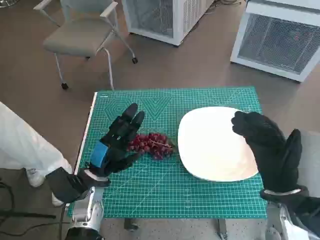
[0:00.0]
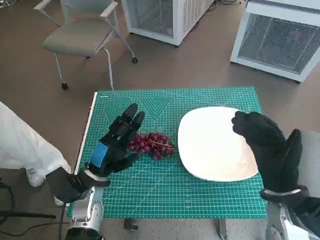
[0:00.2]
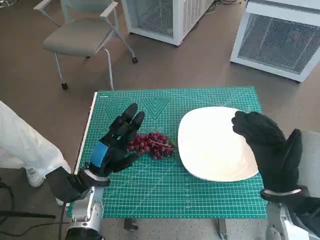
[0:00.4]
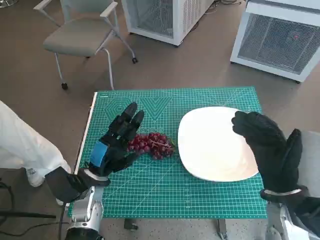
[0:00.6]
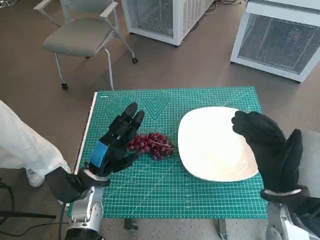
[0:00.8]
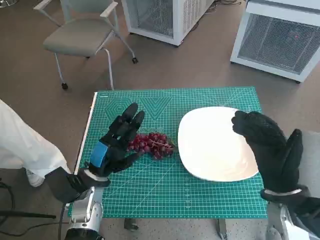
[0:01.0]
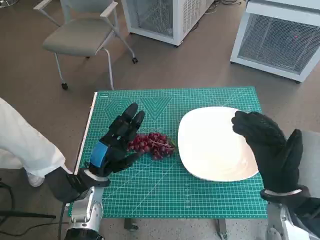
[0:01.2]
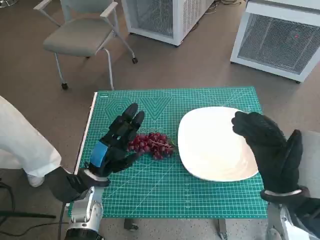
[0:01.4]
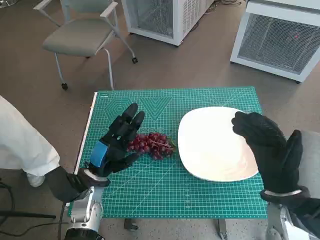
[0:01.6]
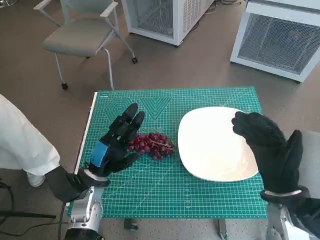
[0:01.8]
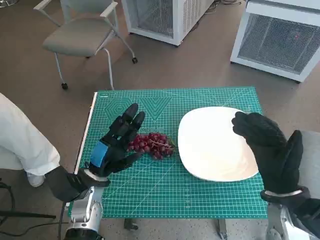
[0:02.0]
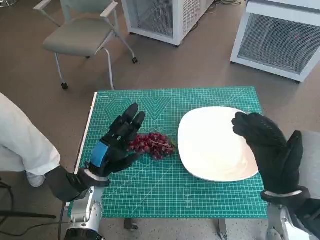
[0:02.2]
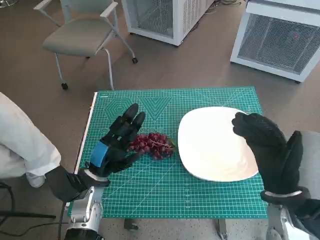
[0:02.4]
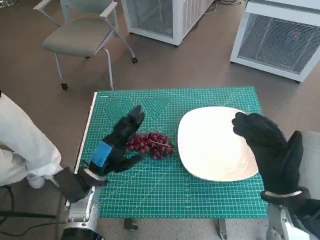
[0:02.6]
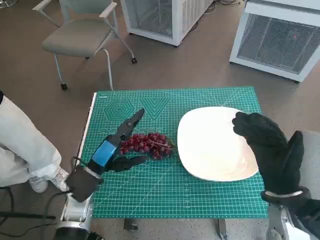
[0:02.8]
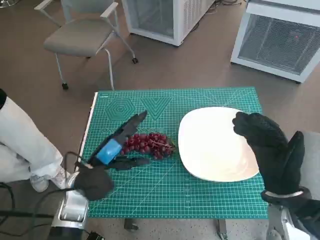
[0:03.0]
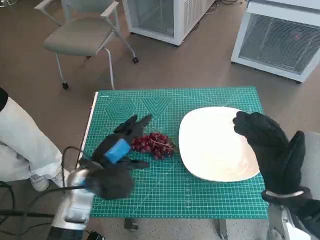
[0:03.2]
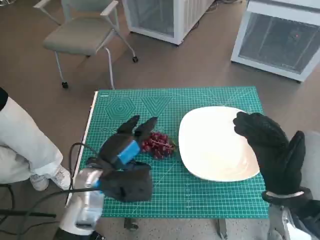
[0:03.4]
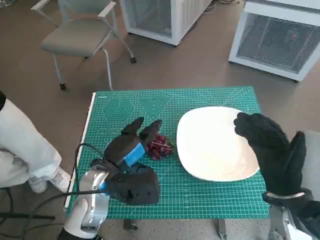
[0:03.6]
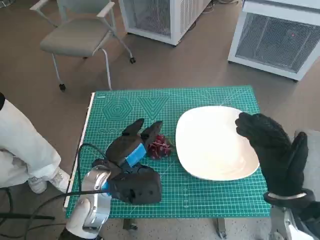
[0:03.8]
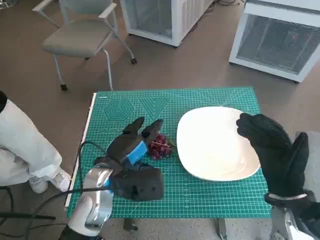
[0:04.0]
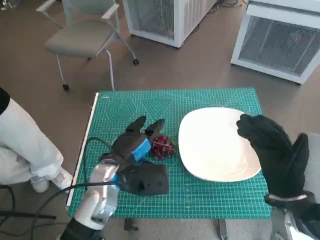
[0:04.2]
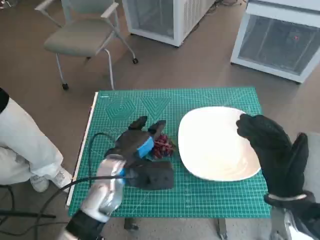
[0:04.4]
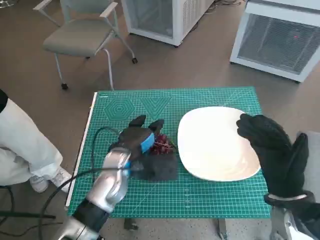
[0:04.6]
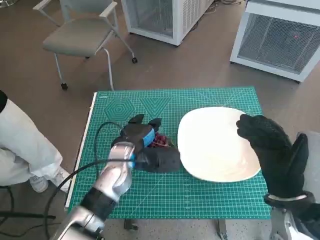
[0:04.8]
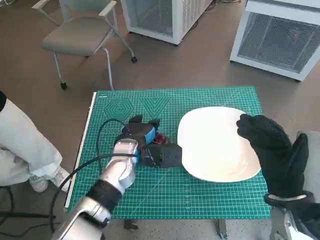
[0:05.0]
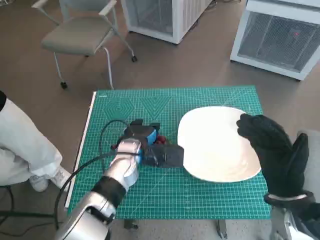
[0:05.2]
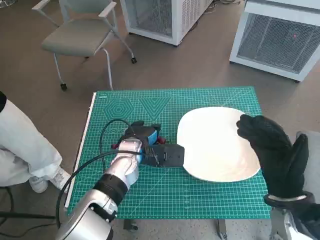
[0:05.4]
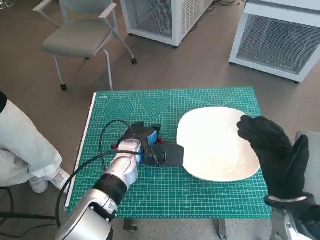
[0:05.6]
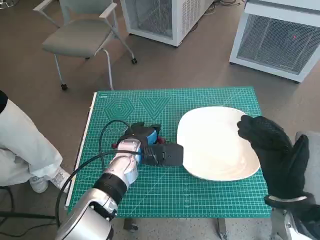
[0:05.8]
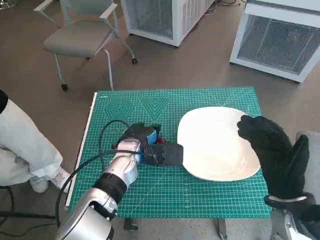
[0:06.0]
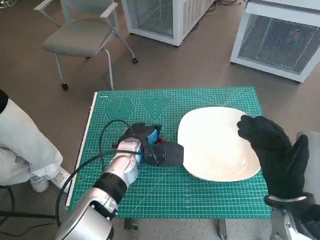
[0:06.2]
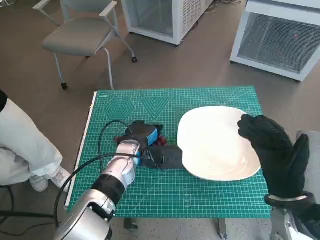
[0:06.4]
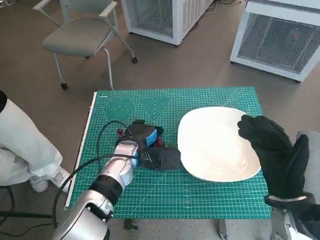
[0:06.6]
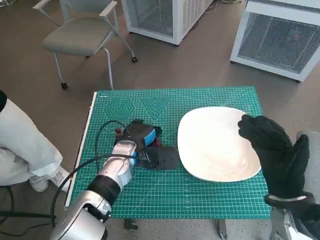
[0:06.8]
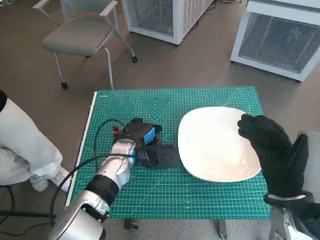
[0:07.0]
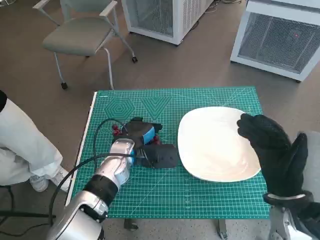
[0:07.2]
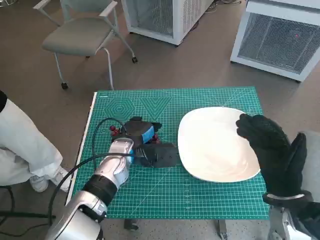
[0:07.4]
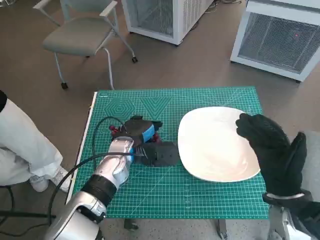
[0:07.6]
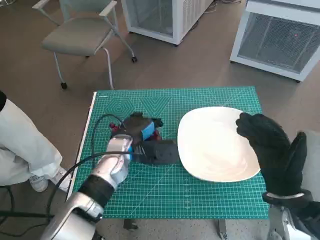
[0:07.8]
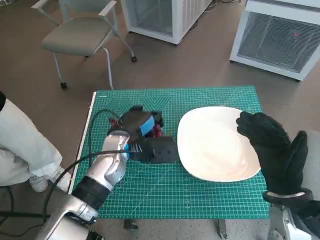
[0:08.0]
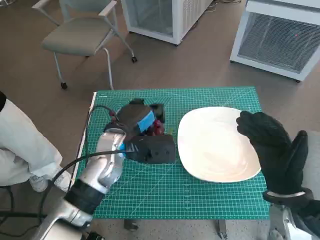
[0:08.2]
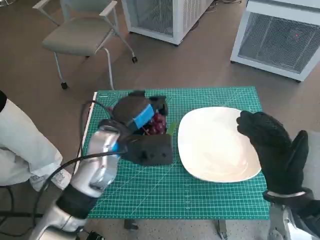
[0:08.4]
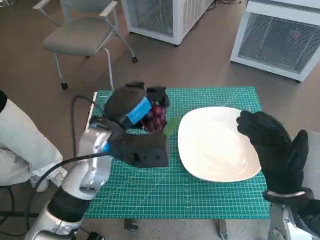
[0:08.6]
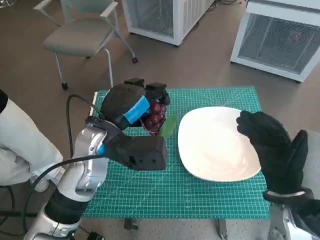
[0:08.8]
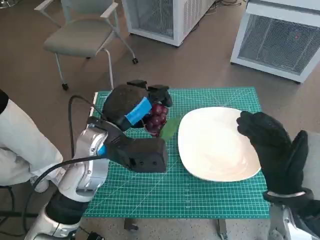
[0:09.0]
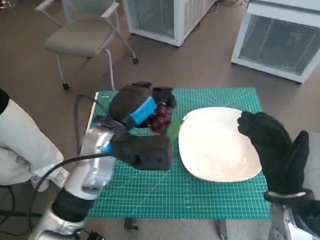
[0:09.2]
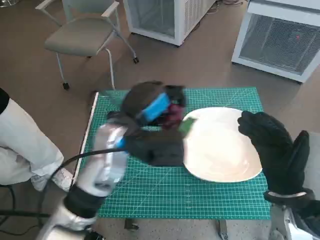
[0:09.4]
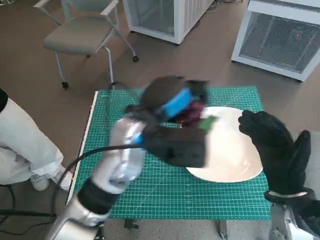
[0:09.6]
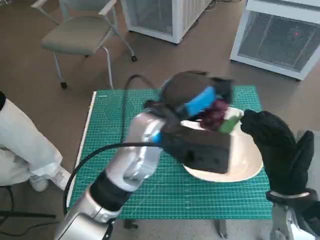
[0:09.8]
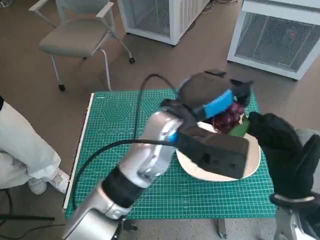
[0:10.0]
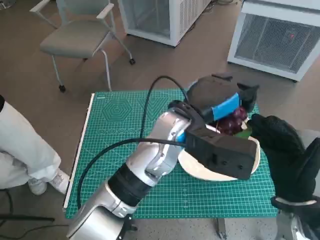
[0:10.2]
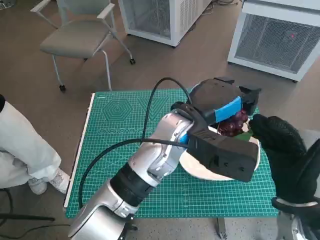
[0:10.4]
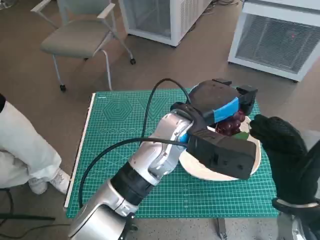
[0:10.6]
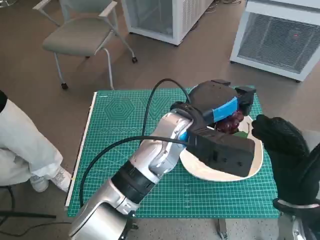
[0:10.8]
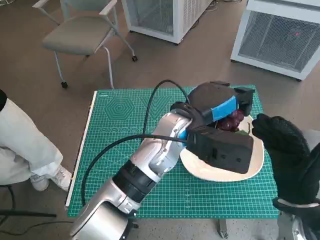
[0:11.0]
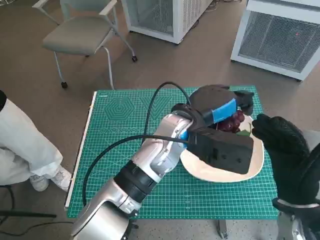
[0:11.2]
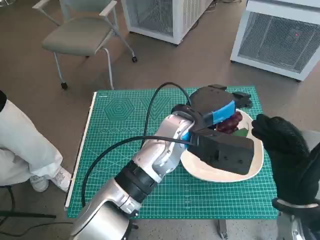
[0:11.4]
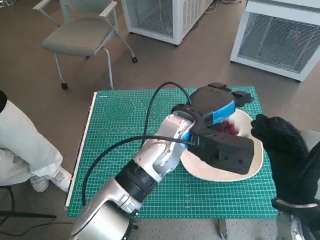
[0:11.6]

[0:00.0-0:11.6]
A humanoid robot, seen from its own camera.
Task of the whole recording: Pick up the grapes and put them on the plate.
Step, 0:00.0 to 0:06.8: Grasp the grapes with left hand.
0:02.8 to 0:04.4: The left hand moves to the right, about 5 cm.
0:04.4 to 0:05.8: The left hand heads forward, covering approximately 5 cm.
0:05.8 to 0:07.2: The hands stay close to where they were, moving slightly.
0:07.2 to 0:08.8: The left hand travels upward by about 10 cm.
0:08.8 to 0:10.2: The left hand heads to the right, covering some 10 cm.
0:10.2 to 0:11.6: The hands make only small movements.

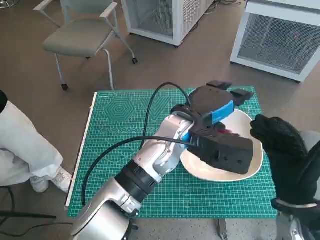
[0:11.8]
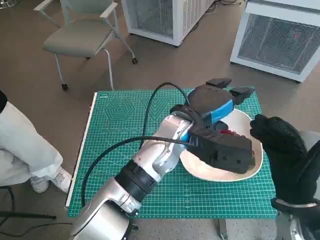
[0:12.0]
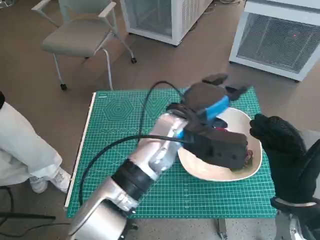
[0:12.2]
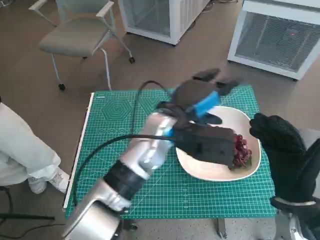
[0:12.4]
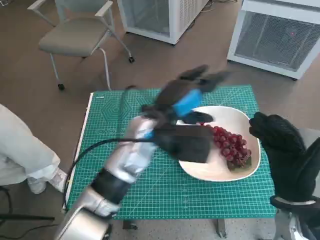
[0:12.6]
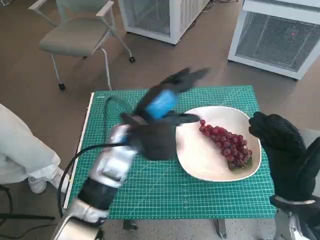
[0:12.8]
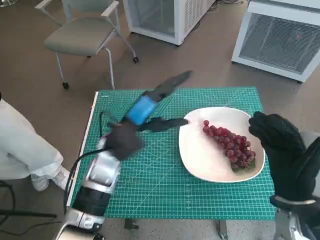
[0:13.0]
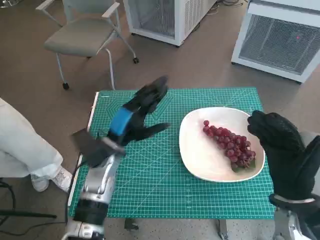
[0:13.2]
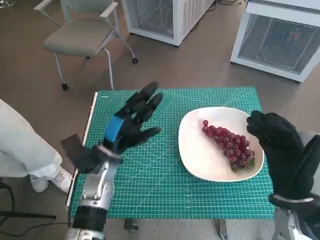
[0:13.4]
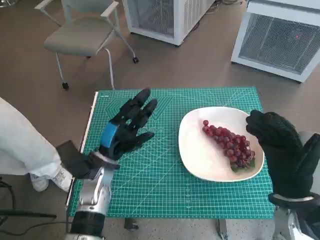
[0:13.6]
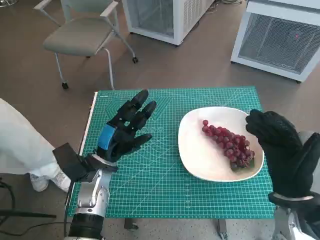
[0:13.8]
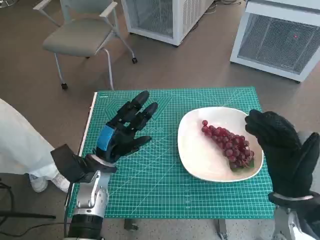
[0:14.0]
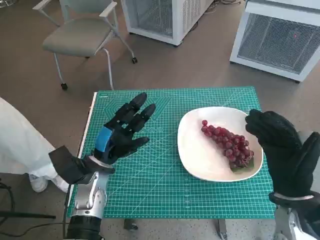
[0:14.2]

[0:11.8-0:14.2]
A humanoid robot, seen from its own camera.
Task of the whole recording: Pick up the grapes and put them on the plate.
0:11.8 to 0:13.0: The left hand shifts about 10 cm to the left.
0:13.0 to 0:14.2: The left hand goes about 10 cm downward and to the left.

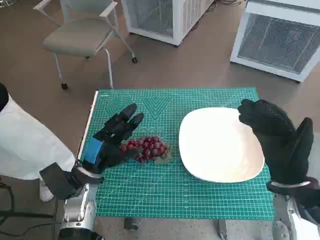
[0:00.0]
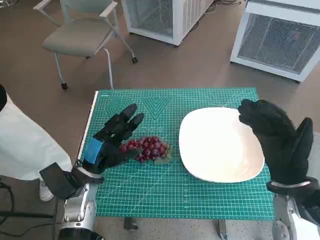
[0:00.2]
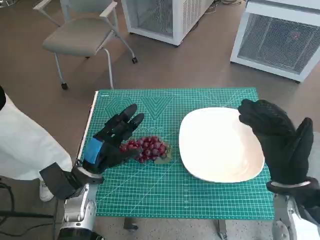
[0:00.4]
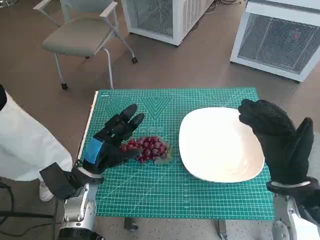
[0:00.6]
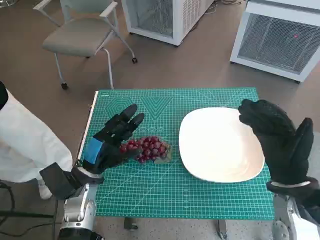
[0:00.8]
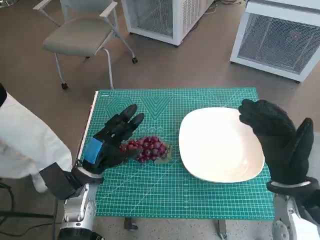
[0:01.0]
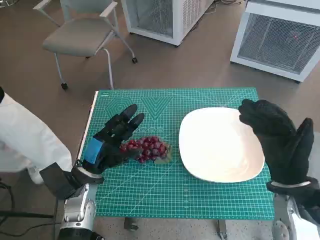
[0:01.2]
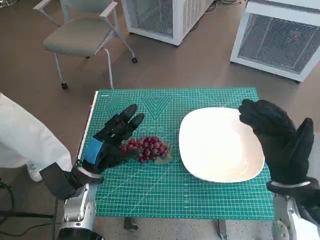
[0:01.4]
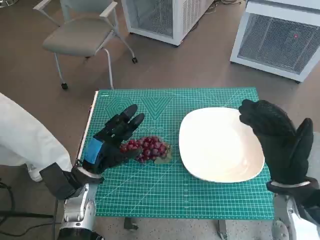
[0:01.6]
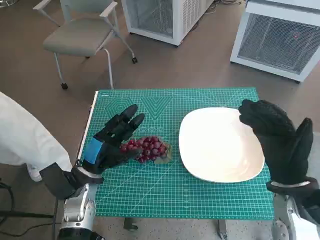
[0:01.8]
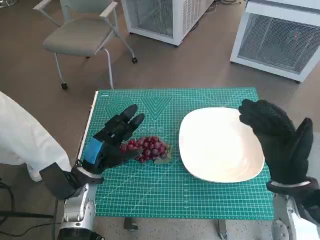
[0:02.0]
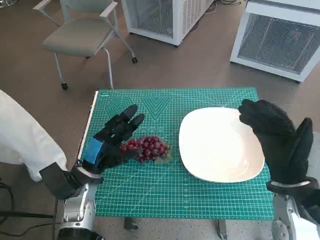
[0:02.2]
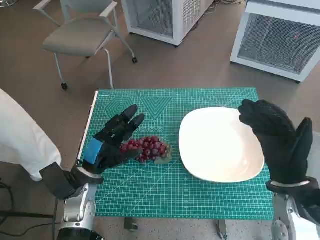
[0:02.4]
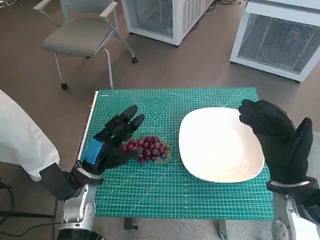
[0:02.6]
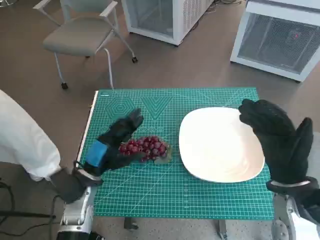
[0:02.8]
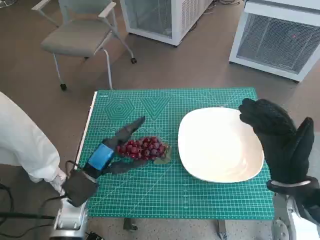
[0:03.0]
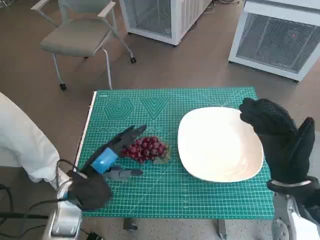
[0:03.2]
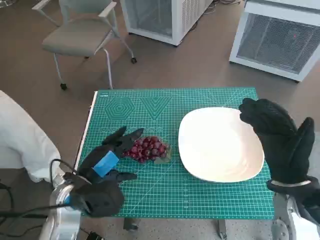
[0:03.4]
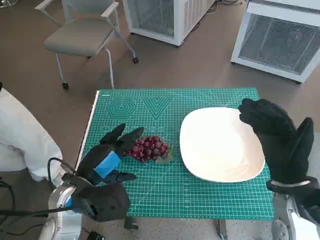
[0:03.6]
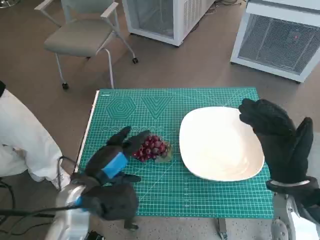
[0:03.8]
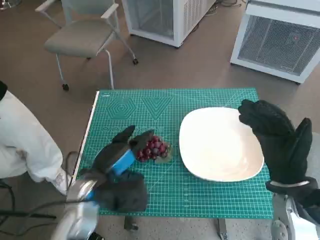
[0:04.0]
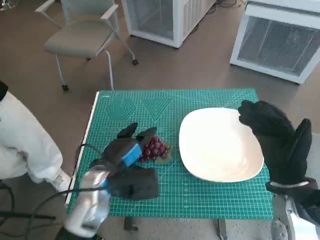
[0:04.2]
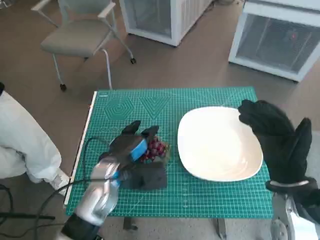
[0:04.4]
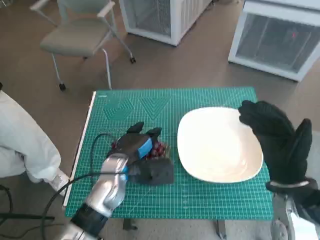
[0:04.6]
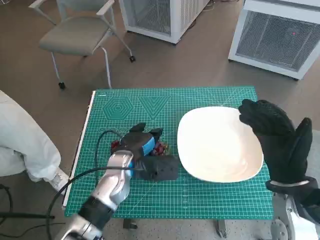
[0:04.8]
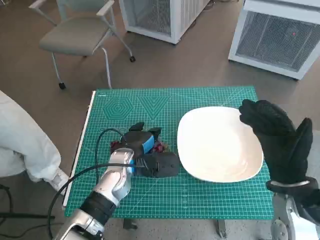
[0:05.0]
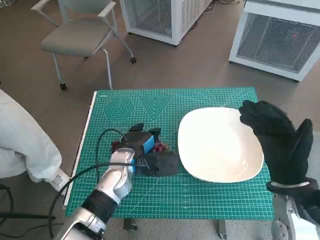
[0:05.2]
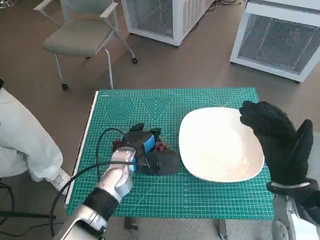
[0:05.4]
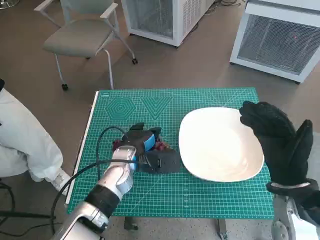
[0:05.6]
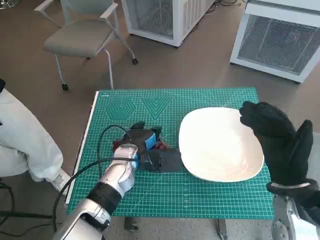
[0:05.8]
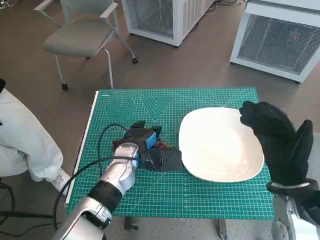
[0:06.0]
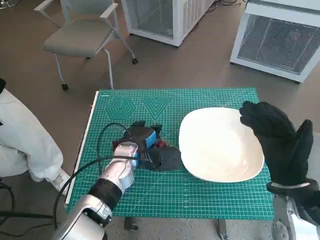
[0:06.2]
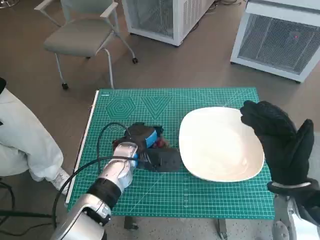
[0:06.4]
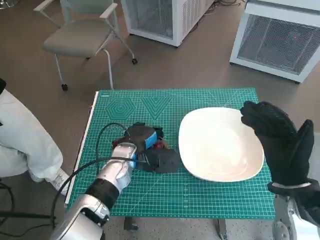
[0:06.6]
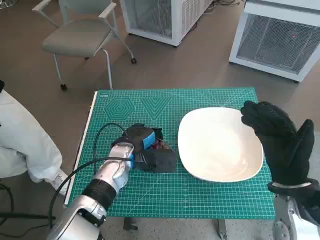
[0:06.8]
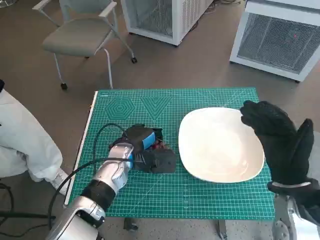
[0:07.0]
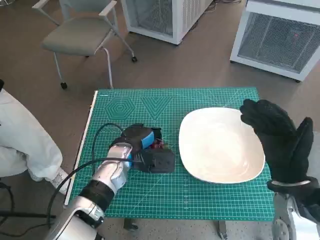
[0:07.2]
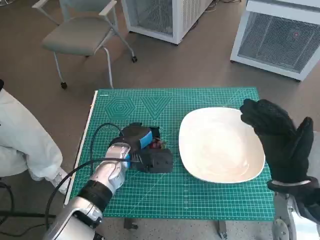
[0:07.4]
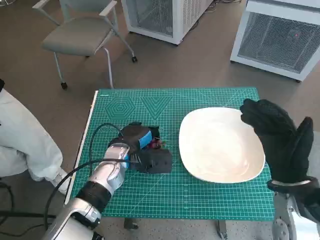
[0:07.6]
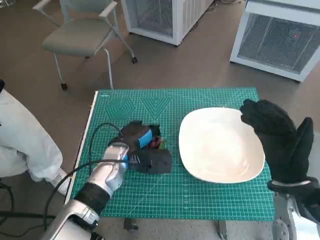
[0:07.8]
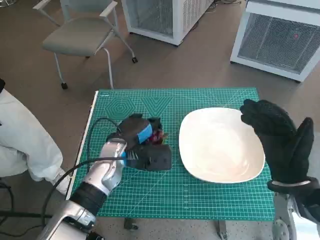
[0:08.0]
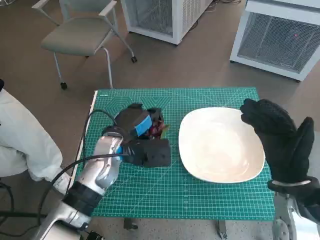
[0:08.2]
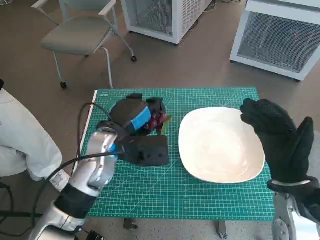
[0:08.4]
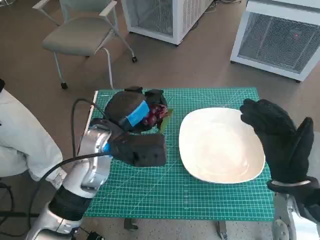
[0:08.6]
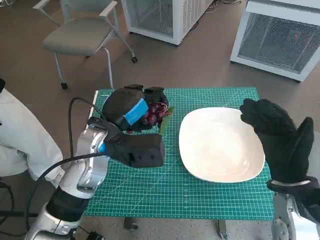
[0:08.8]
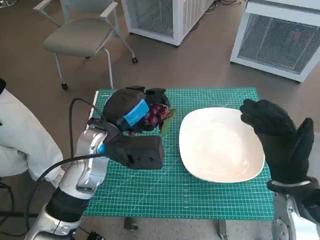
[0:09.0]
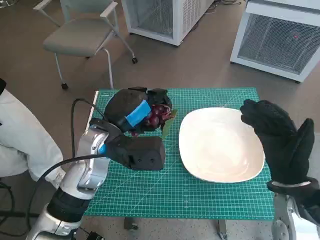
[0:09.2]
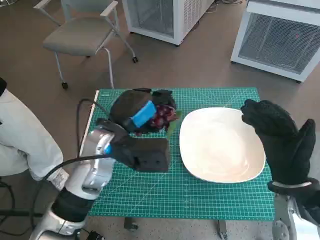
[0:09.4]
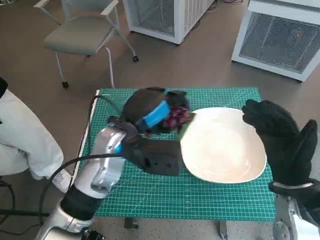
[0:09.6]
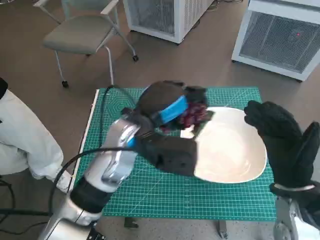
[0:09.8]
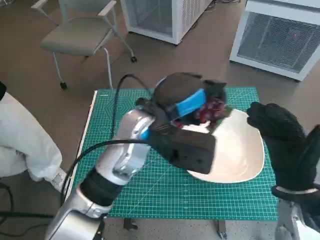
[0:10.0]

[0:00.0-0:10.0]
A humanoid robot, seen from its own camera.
Task of the whole recording: Pick up the grapes and put them on the plate.
Step, 0:00.0 to 0:07.6: Grasp the grapes with left hand.
0:01.4 to 0:02.8: The hands stay close to where they were, moving slightly.
0:02.8 to 0:04.2: The left hand goes about 5 cm to the right.
0:04.2 to 0:05.8: The left hand is displaced forward by approximately 5 cm.
0:05.8 to 0:07.2: The hands stay close to where they were, moving slightly.
0:07.2 to 0:08.6: The left hand is displaced upward by roughly 10 cm.
0:08.6 to 0:10.0: The left hand goes some 10 cm to the right.
